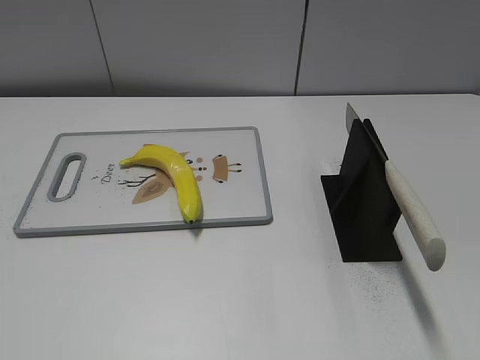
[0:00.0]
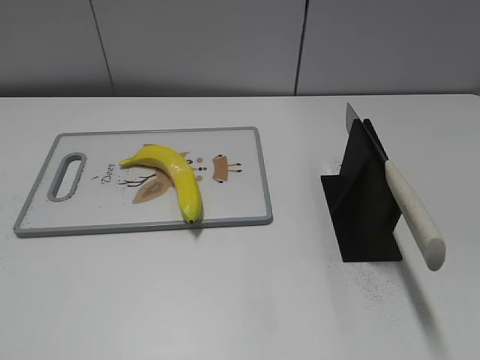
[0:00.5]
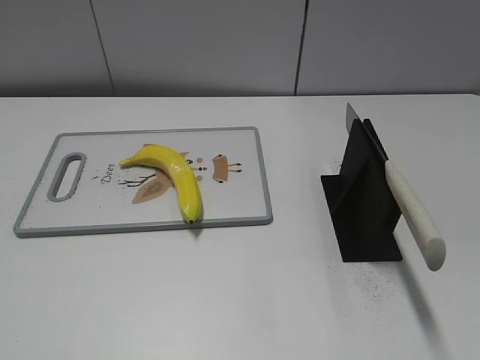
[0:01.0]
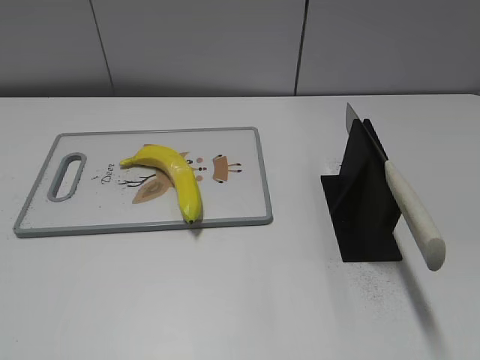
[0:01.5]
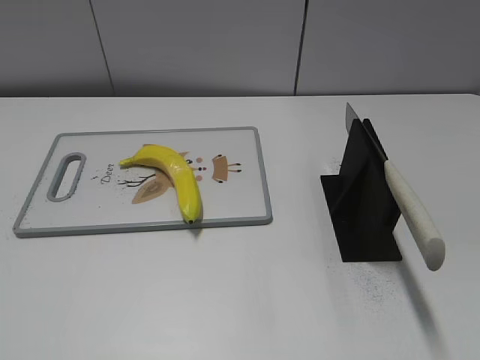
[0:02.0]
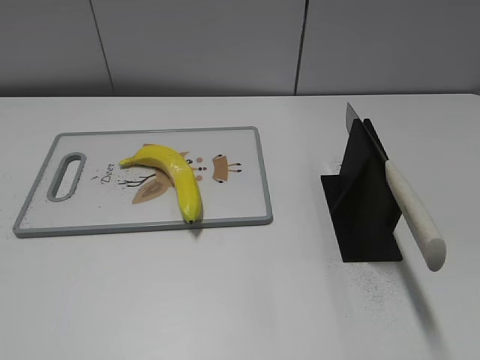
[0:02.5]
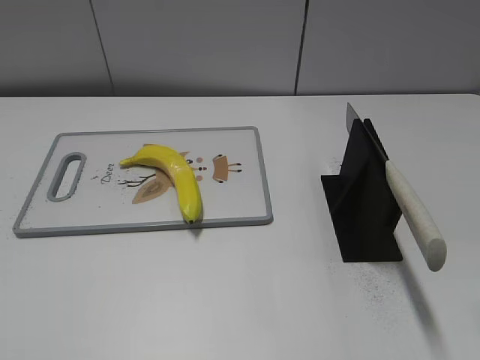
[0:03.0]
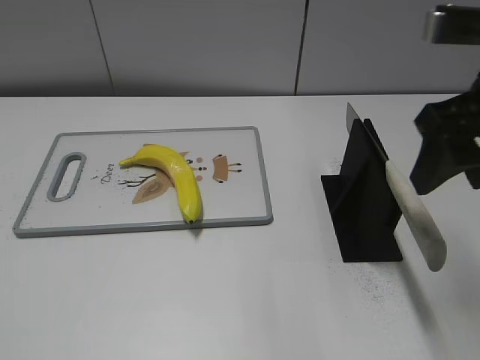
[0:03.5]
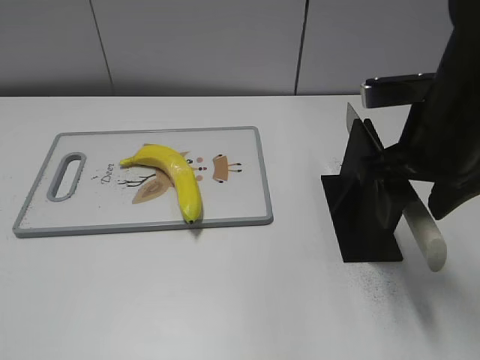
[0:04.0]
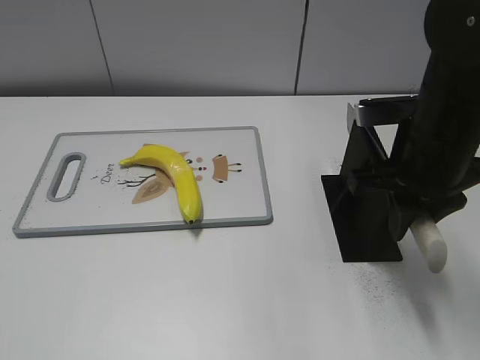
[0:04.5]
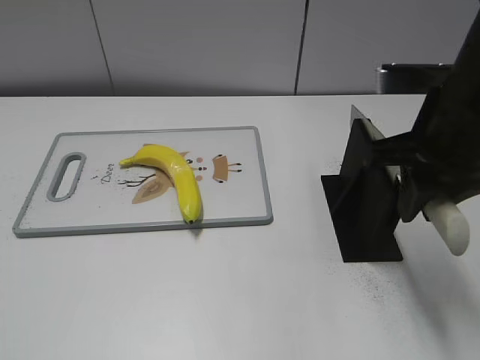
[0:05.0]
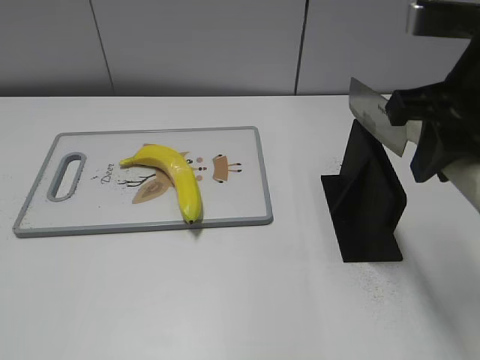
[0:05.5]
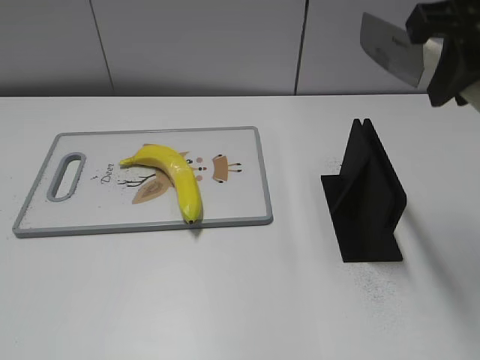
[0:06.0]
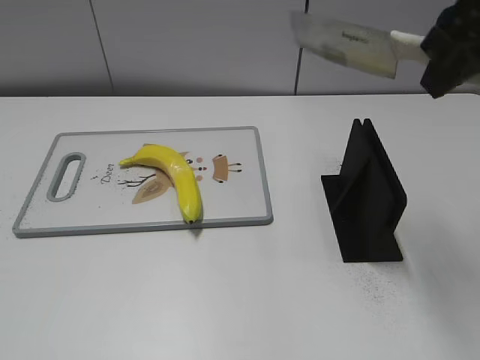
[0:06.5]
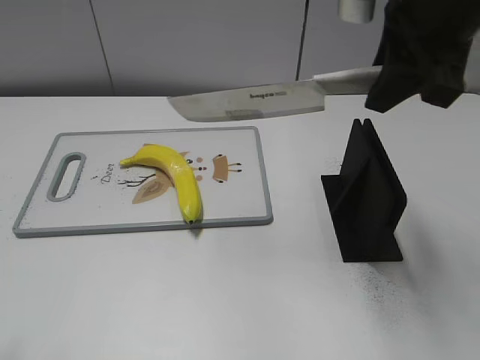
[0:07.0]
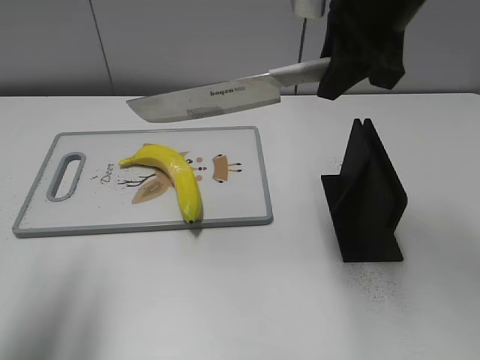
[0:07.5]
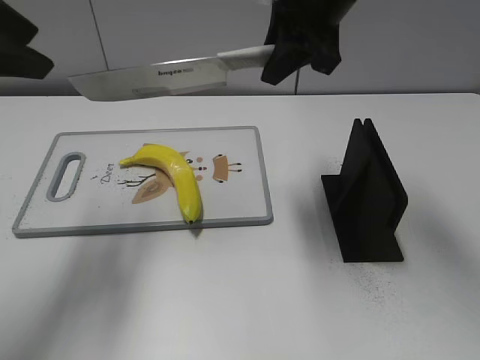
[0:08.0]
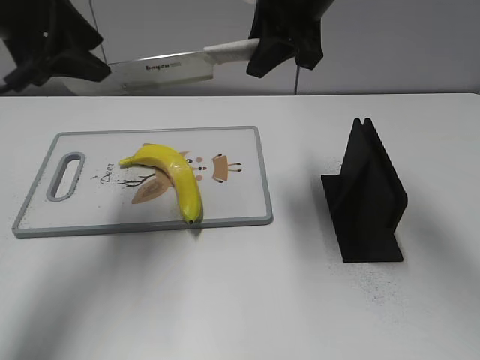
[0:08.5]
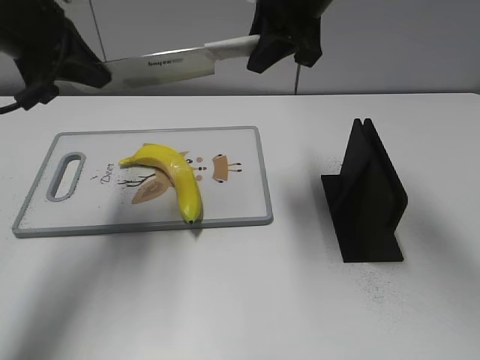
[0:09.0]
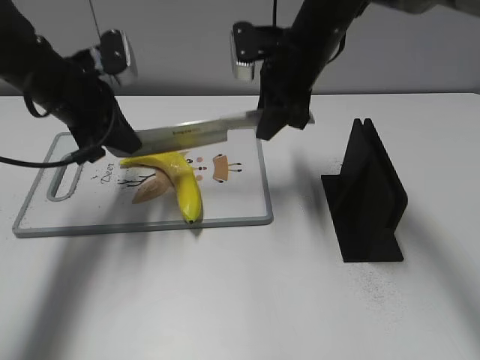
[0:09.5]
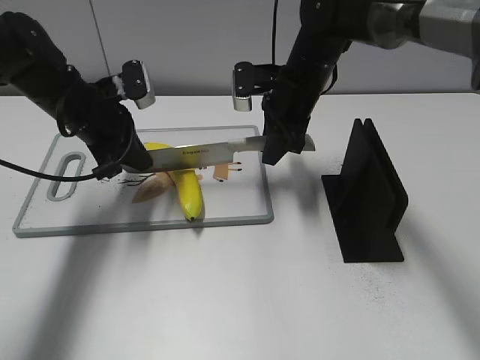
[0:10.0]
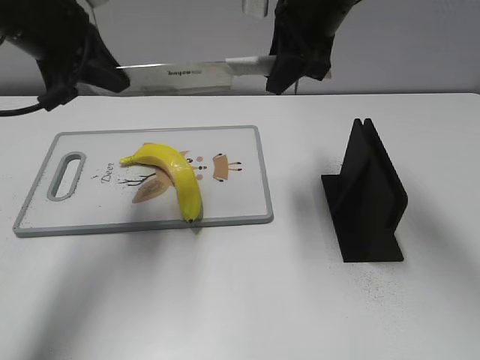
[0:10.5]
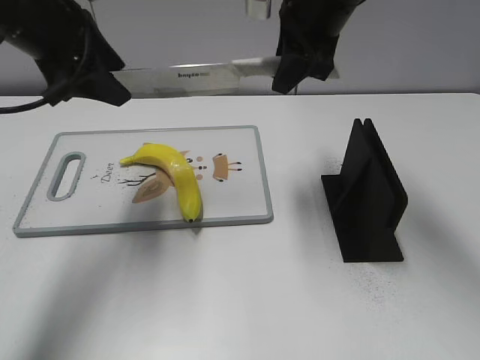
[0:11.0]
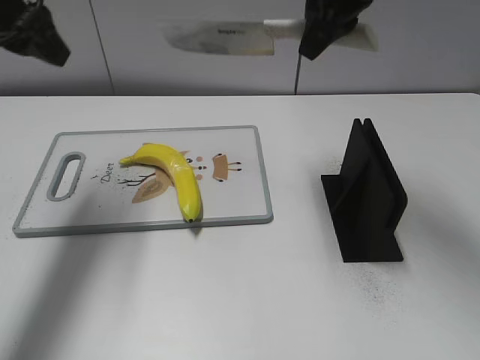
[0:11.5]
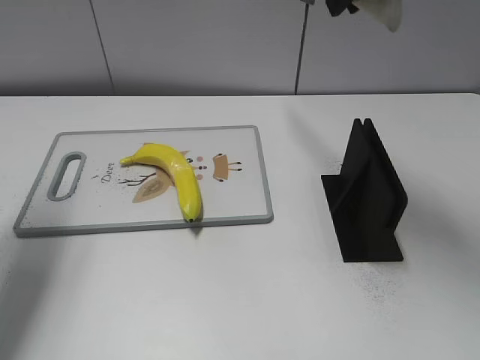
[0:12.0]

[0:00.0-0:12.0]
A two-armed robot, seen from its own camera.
Task of the whole recording: cut plastic banana.
Step, 0:00.0 to 0:05.5: Grab the knife handle with your right hand.
Step, 0:06.0 to 0:11.0: Lift the knife with your right hand.
0:02.0 to 0:04.0: The right gripper shifts approximately 30 cm forward and to the left.
0:04.0 to 0:06.0: The right gripper is displaced upward by some 15 cm, and closes up.
0:06.0 to 0:08.0: The left gripper heads forward, covering some 30 cm. Meanwhile the right gripper goes approximately 15 cm forward and to the left.
0:08.0 to 0:10.0: The left gripper heads downward and forward, covering some 20 cm, and closes. Meanwhile the right gripper moves downward, some 15 cm.
0:10.0 to 0:12.0: The left gripper moves upward, to the left and backward, about 20 cm, and opens up, while the right gripper is displaced upward by approximately 20 cm.

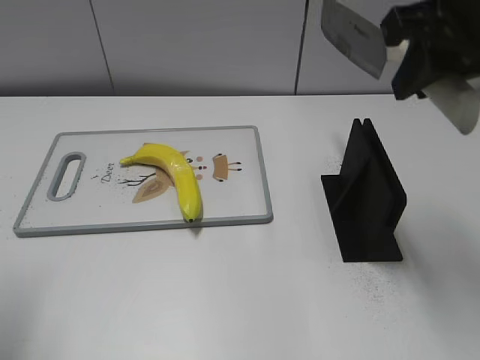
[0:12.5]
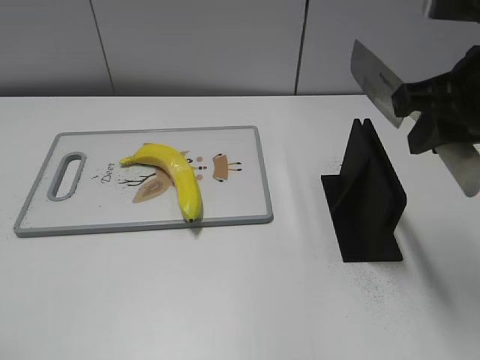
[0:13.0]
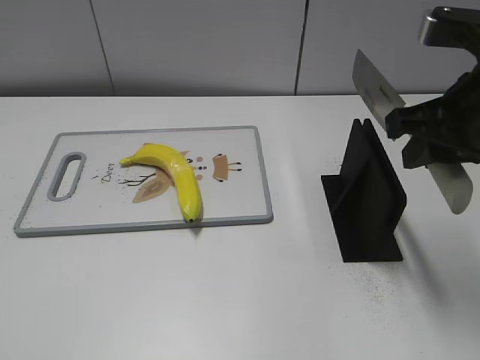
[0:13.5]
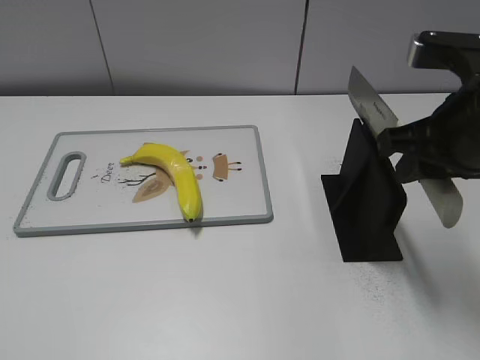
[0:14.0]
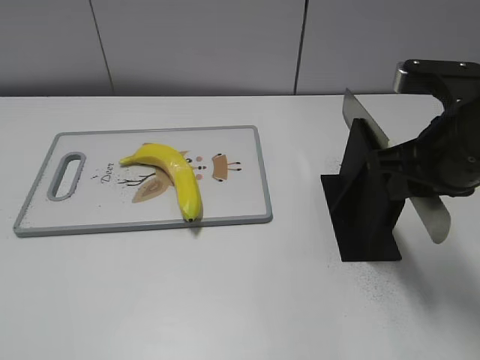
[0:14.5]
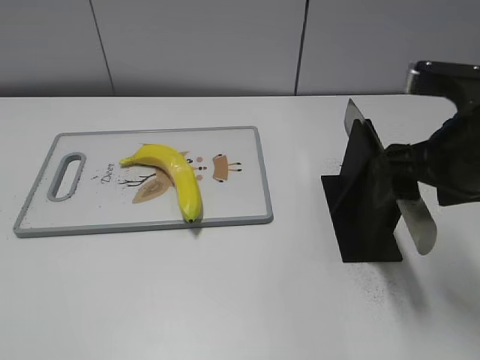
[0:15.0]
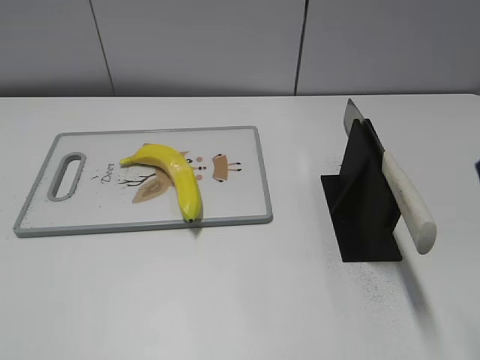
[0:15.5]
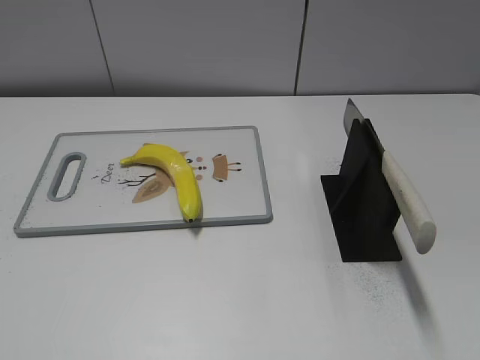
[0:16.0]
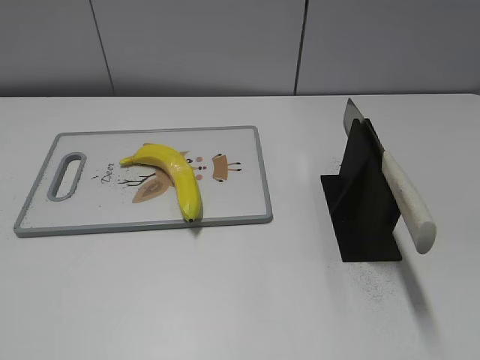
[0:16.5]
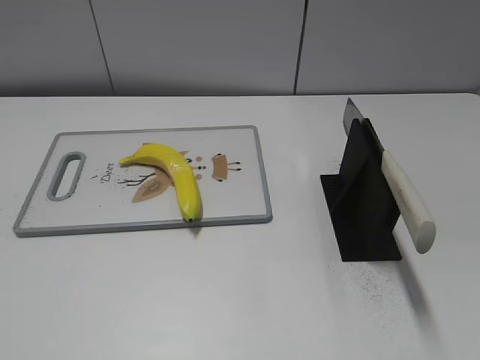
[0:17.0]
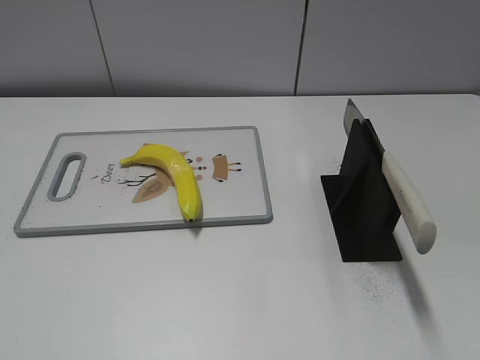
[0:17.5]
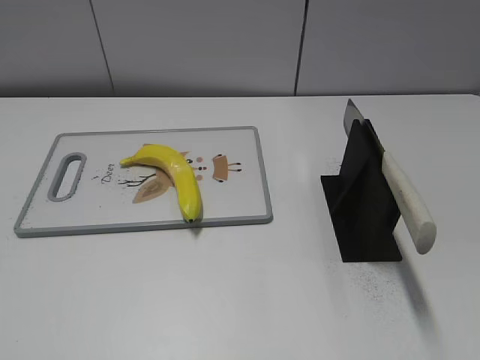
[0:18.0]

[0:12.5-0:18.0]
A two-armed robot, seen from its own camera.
Task of the whole recording: cut plastic banana.
Step, 0:12.5 to 0:13.0: Secure the blade with your left hand.
Step, 0:13.5 to 0:18.0: Place the knife on the storage rack with your right hand.
0:12.5 to 0:14.5: The left gripper goes about 15 cm backward. Meanwhile the right gripper travels downward by approximately 10 cm.
0:14.5 to 0:16.0: The right gripper heads backward, upward and to the right, covering some 25 cm, and opens up.
